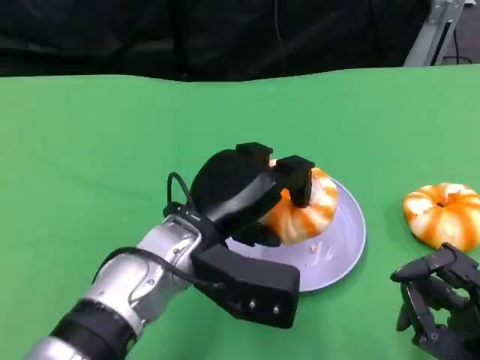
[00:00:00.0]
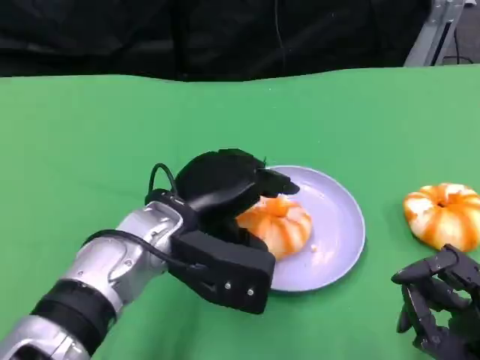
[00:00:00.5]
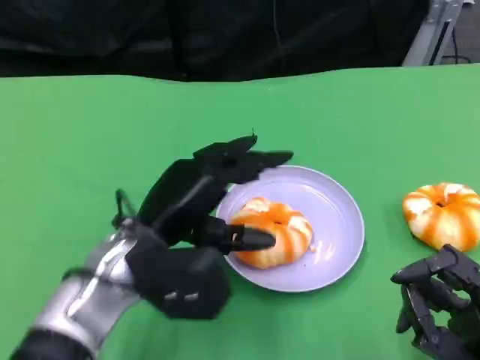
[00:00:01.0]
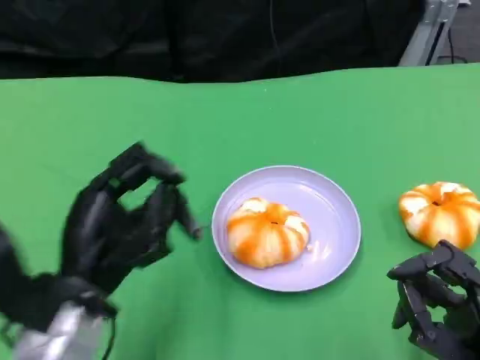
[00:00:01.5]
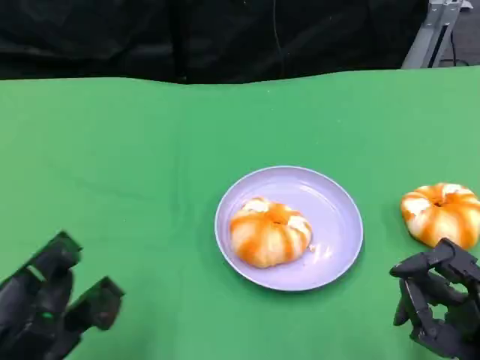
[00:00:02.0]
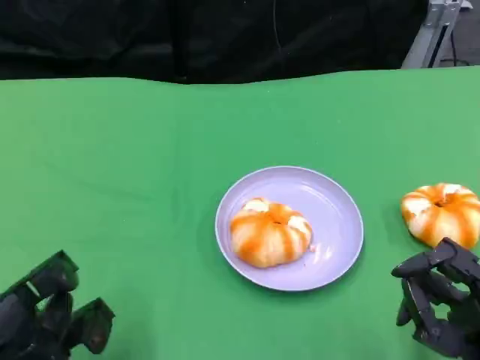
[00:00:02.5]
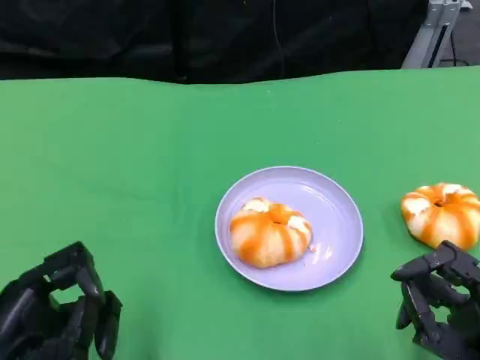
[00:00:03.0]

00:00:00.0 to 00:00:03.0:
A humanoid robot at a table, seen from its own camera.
Task of the whole recording: Grasp the bread from the table and place it into the plate.
00:00:00.0 to 00:00:01.5: The left hand goes about 15 cm to the left and backward.
00:00:01.5 to 00:00:03.0: The left hand is displaced to the left and backward by roughly 10 cm.

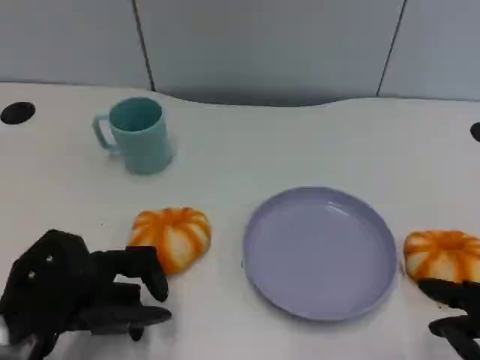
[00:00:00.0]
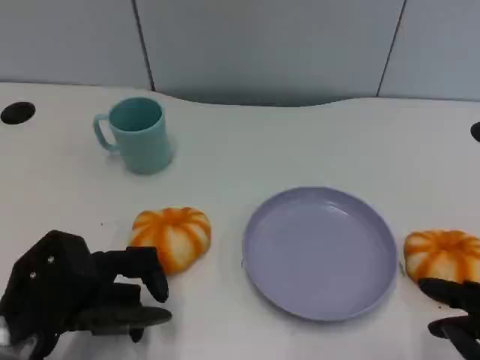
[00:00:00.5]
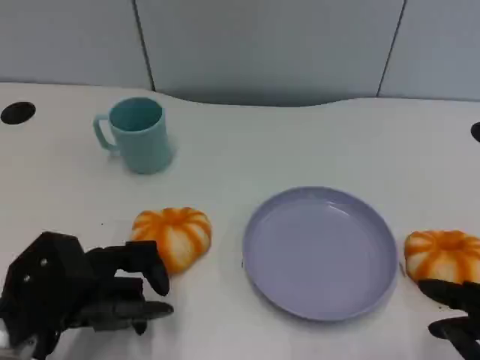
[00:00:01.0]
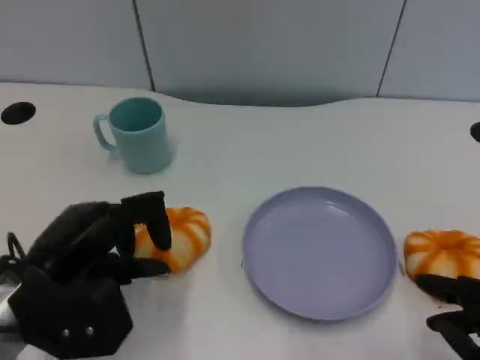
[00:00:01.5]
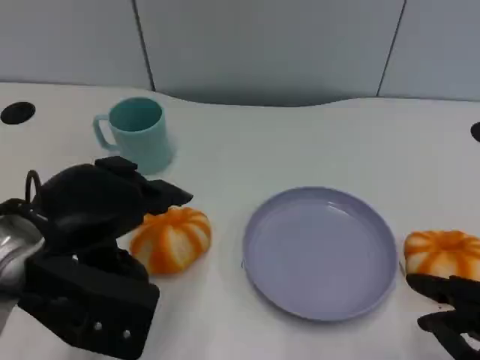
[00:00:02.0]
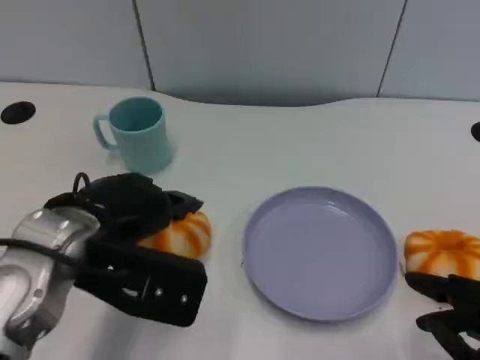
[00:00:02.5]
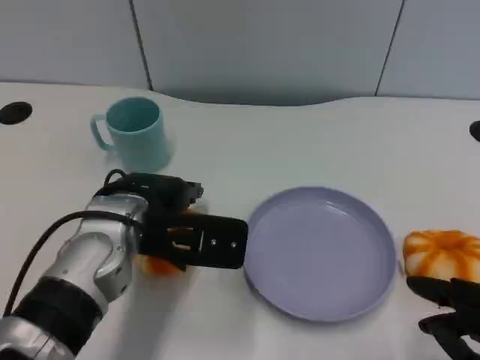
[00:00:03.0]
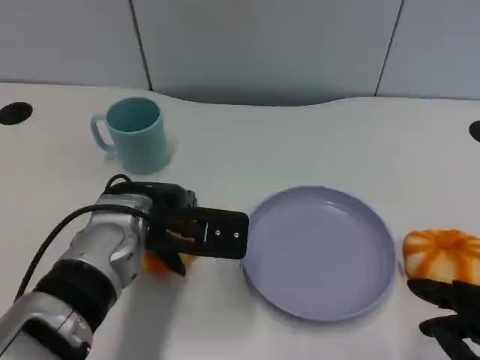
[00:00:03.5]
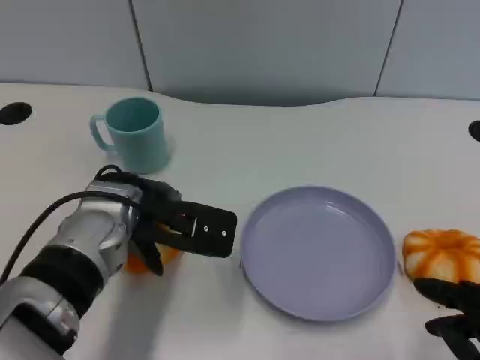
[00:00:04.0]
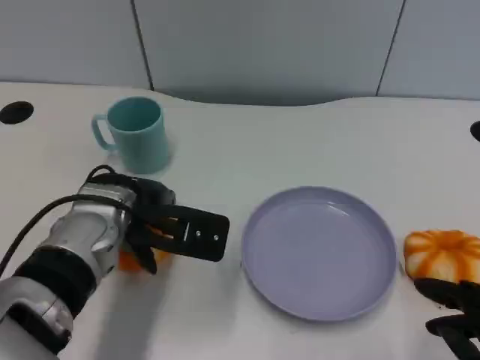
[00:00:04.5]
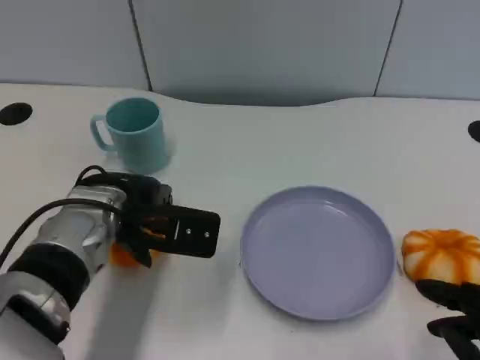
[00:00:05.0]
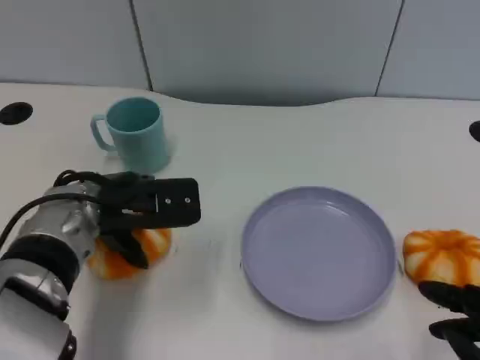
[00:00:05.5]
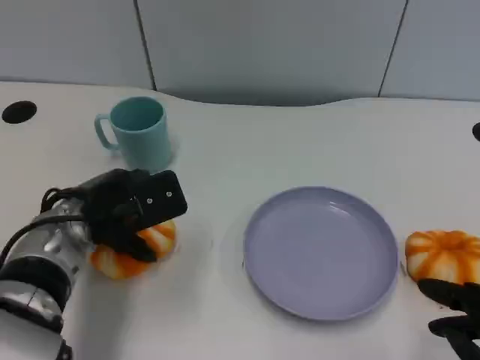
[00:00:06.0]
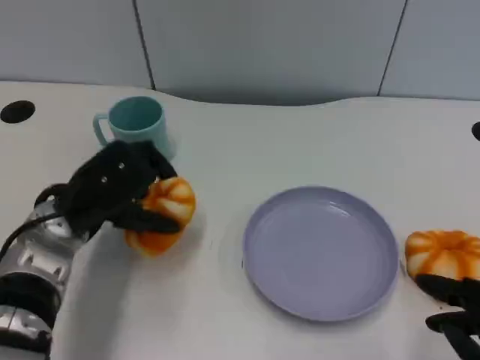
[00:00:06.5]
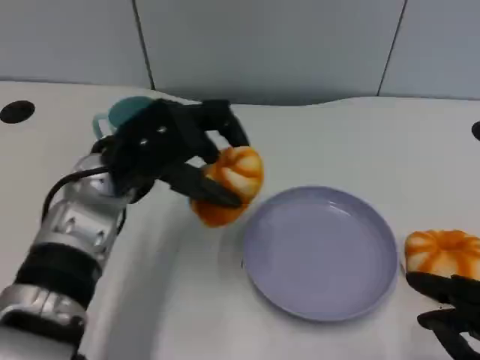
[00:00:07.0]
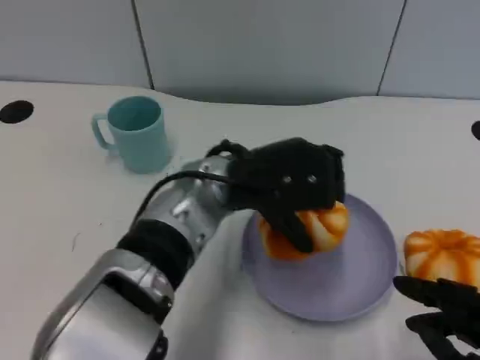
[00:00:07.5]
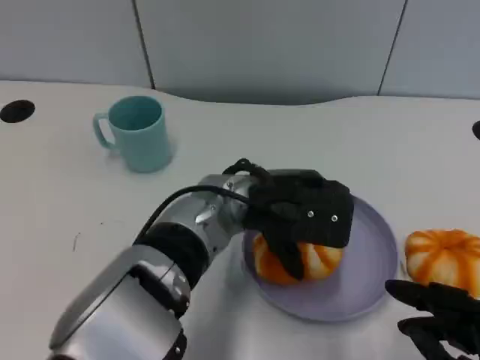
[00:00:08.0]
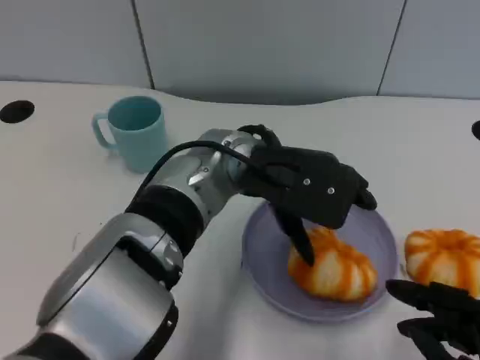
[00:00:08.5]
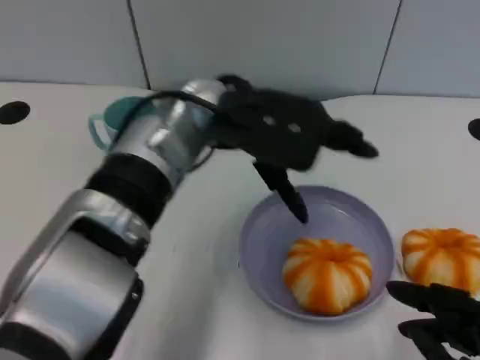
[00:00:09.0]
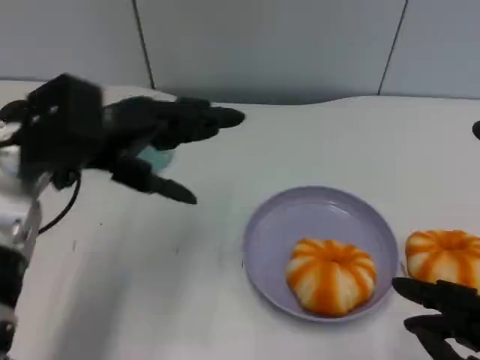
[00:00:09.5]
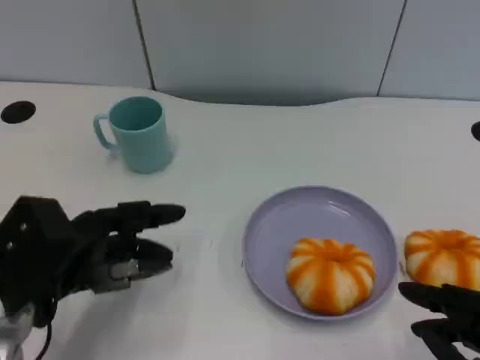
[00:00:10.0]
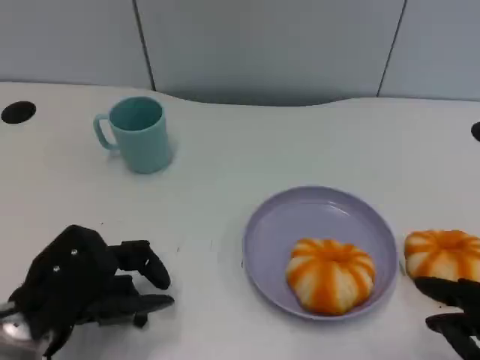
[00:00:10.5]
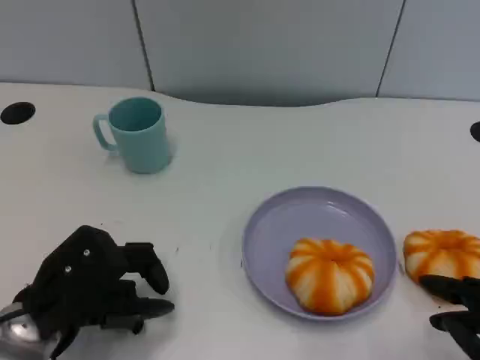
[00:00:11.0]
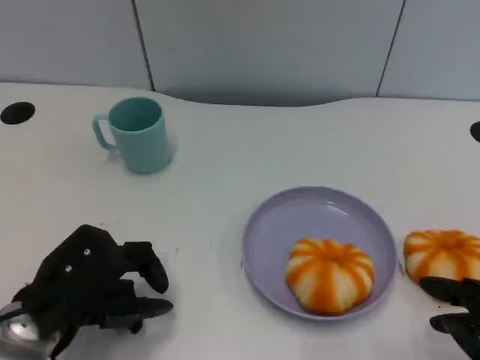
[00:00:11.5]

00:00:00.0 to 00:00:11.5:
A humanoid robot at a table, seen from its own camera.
Task of the whole recording: Grasp the bread from the table and place it into the plate.
00:00:00.0 to 00:00:02.0: The left hand heads upward, covering about 10 cm.
00:00:02.0 to 00:00:04.0: The left hand travels forward, to the right and downward by about 15 cm.
00:00:04.0 to 00:00:06.0: The left hand changes place by some 5 cm.
00:00:06.0 to 00:00:07.5: The left hand moves to the right, about 15 cm.
00:00:07.5 to 00:00:09.5: The left hand goes approximately 20 cm to the left.
00:00:09.5 to 00:00:11.5: The left hand is displaced downward and backward by approximately 15 cm.

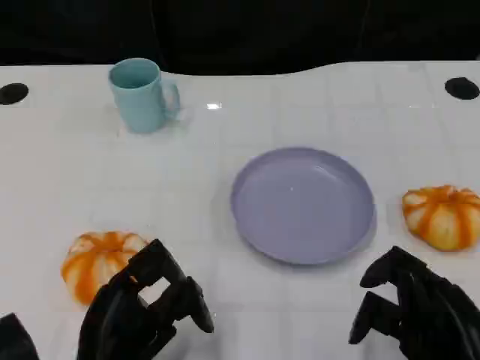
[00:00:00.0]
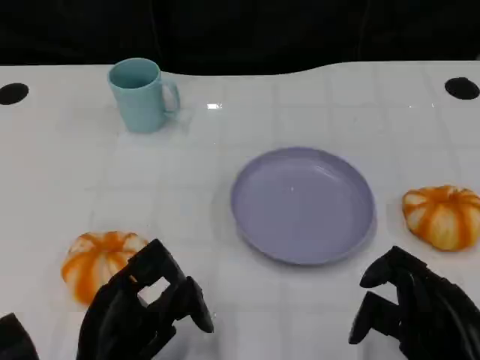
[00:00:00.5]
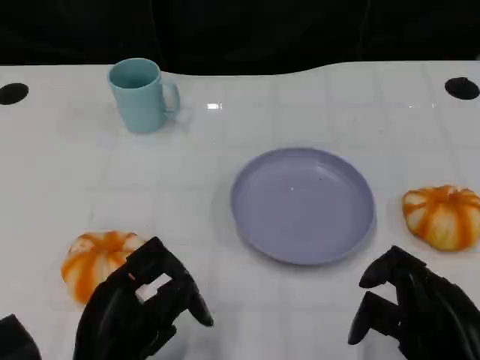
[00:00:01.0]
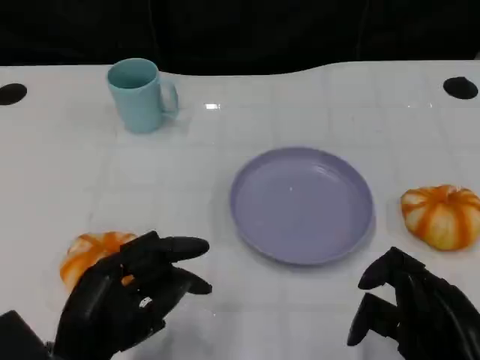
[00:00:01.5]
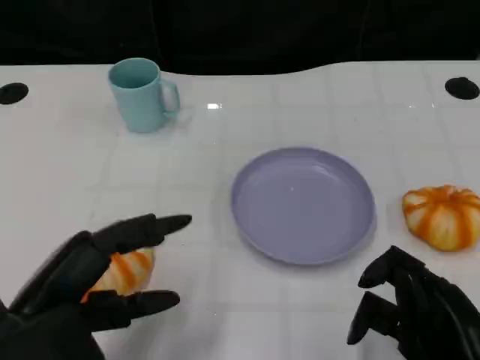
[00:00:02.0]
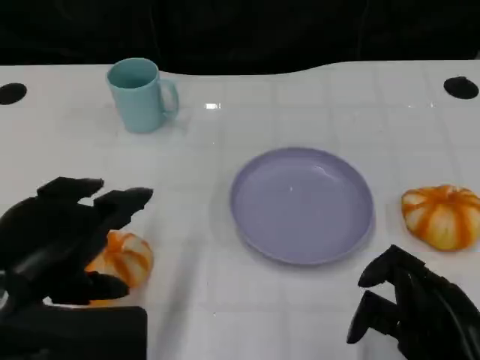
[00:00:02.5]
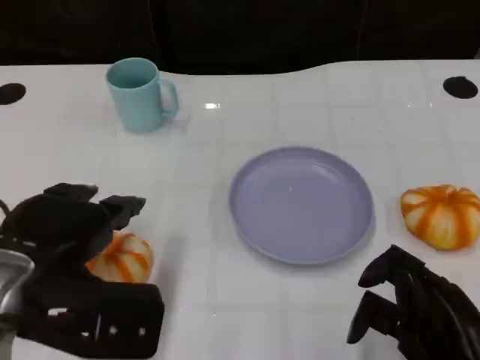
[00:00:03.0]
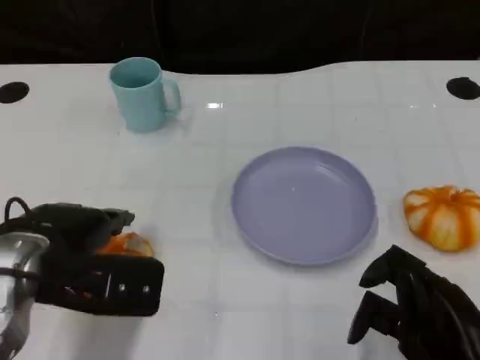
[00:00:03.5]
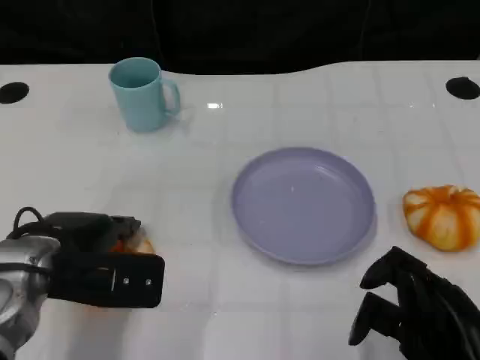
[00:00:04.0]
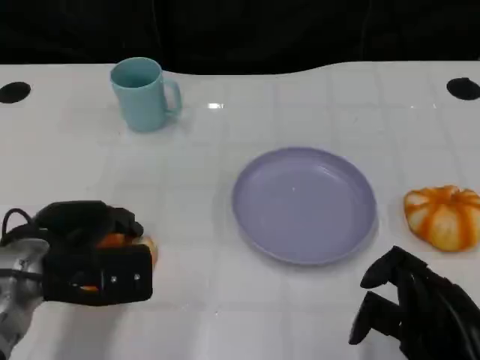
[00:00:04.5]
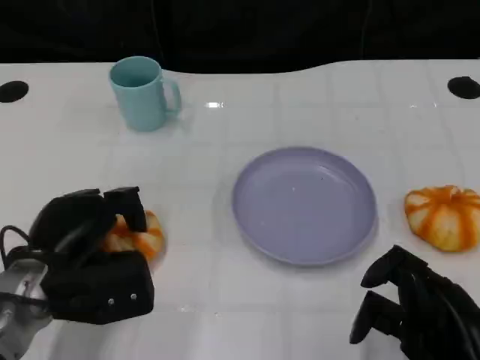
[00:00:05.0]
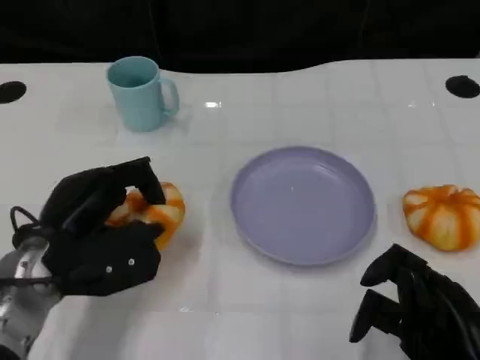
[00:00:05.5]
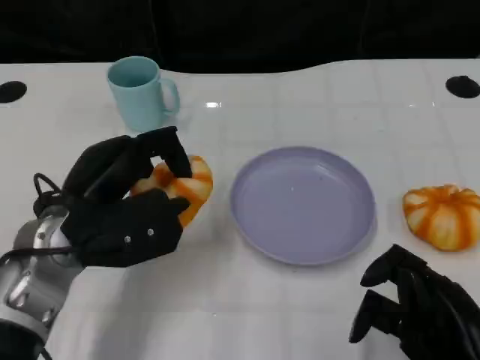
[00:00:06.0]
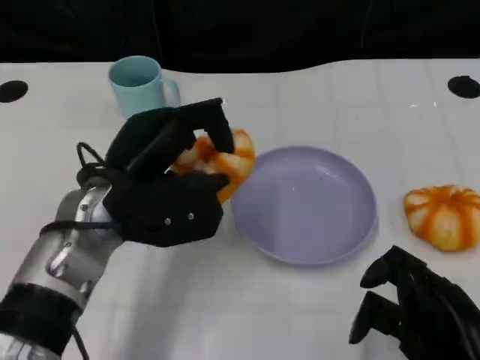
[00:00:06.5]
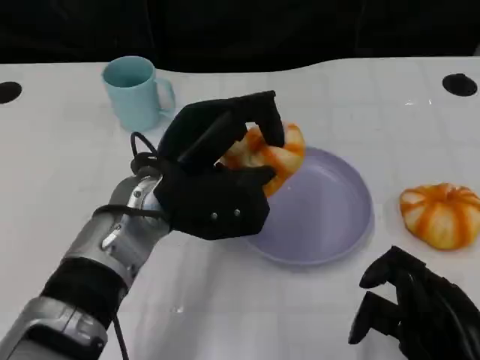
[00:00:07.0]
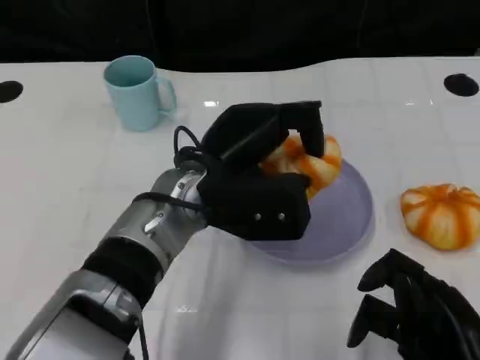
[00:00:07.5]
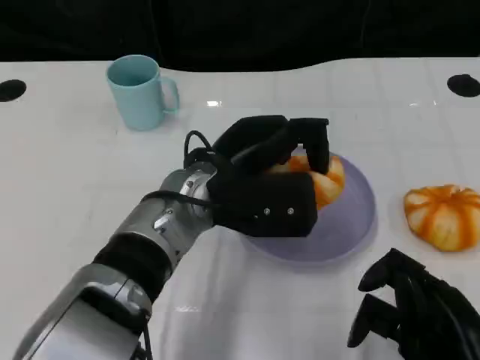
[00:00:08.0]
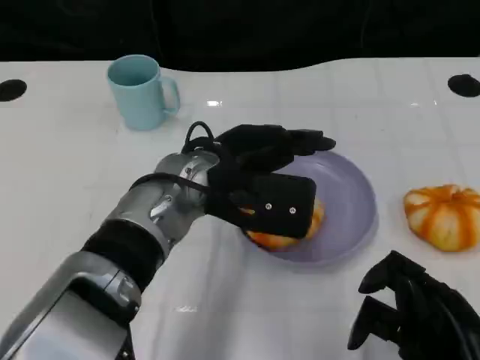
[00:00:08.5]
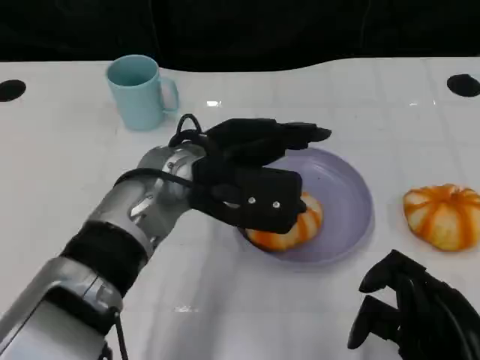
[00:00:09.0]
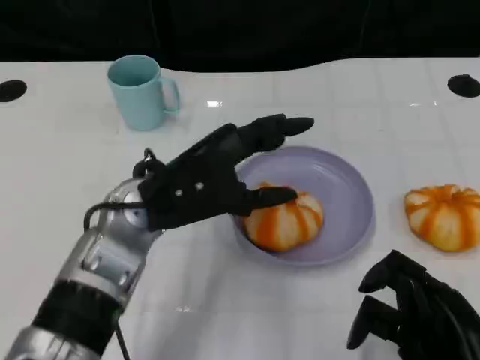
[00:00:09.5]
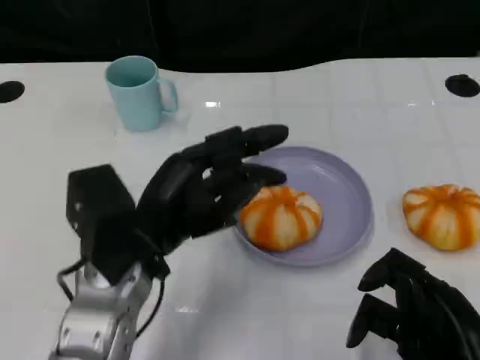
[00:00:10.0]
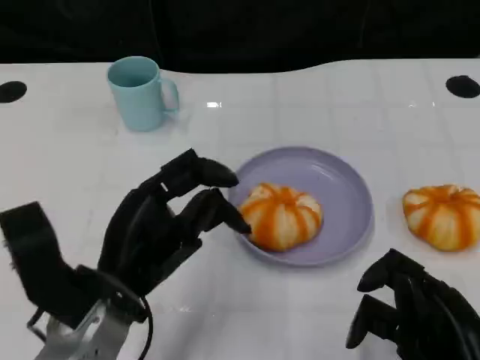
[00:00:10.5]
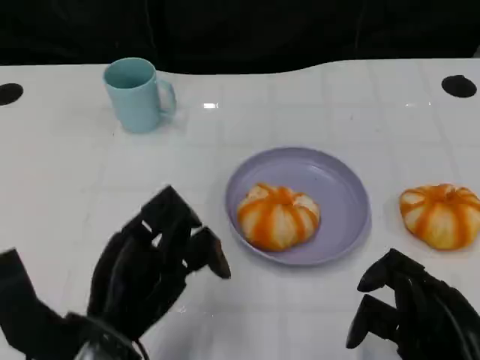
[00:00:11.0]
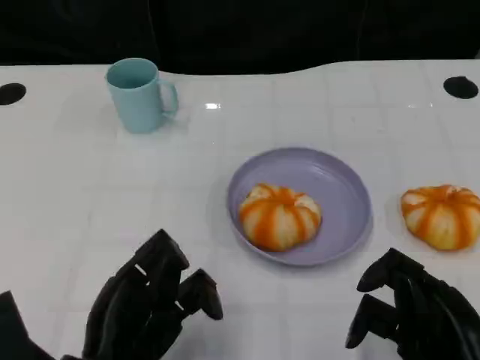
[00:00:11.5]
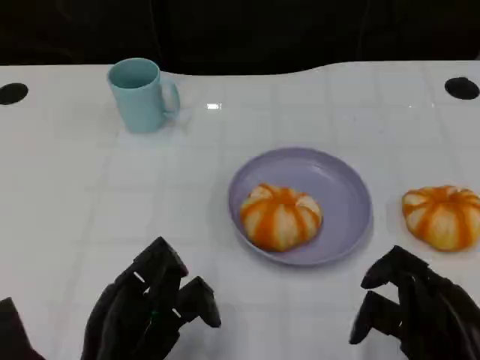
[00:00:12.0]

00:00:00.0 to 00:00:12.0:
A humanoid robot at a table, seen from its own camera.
Task of the whole recording: Grasp the bread from the table and place it into the plate.
00:00:00.0 to 00:00:02.0: The left hand heads upward and to the left, covering approximately 10 cm.
00:00:02.0 to 00:00:04.0: The left hand travels forward by about 10 cm.
00:00:06.0 to 00:00:08.0: The left hand moves to the right, approximately 15 cm.
00:00:08.0 to 00:00:10.0: The left hand goes some 10 cm to the left and backward.
00:00:10.0 to 00:00:12.0: The left hand shifts approximately 10 cm backward and downward.
